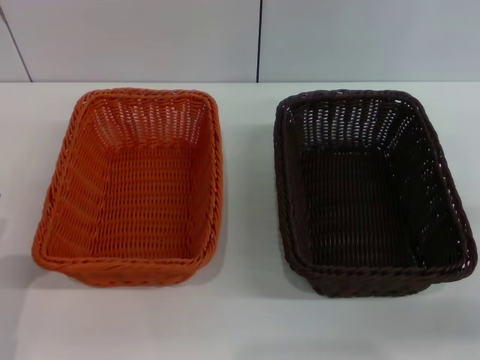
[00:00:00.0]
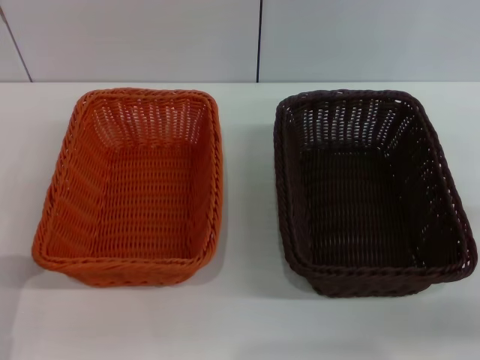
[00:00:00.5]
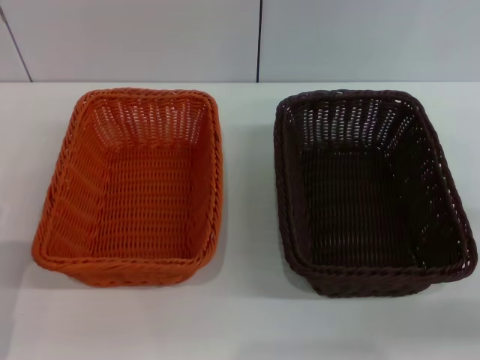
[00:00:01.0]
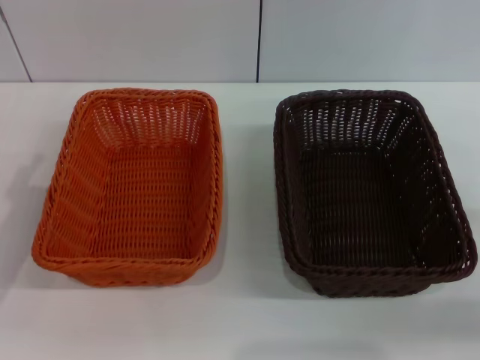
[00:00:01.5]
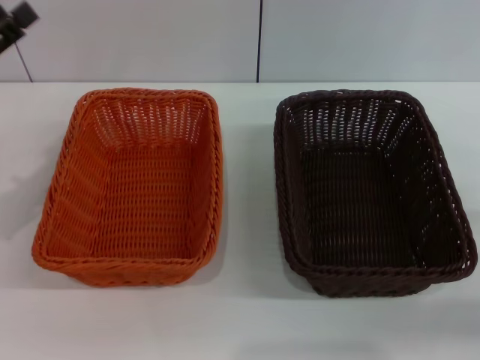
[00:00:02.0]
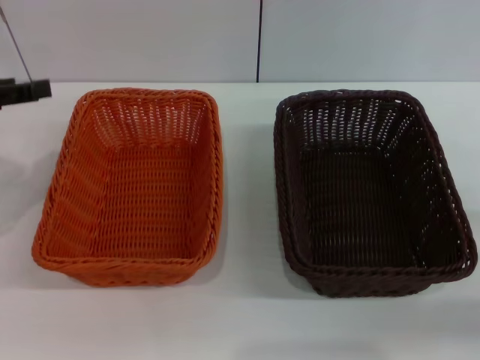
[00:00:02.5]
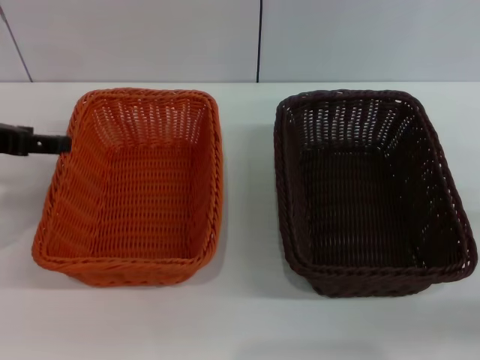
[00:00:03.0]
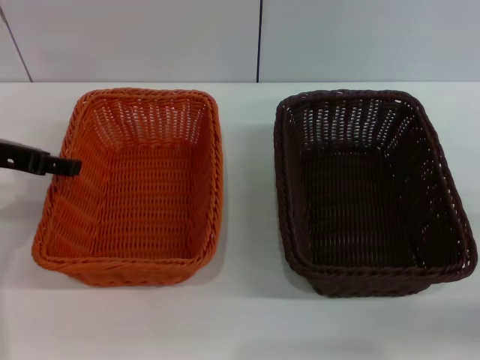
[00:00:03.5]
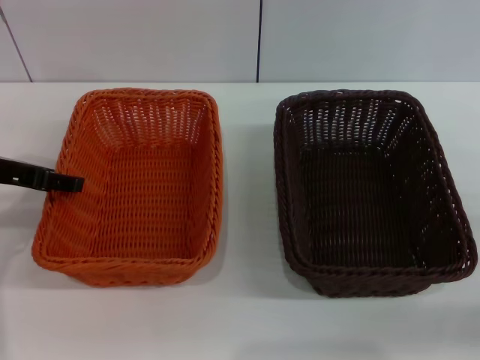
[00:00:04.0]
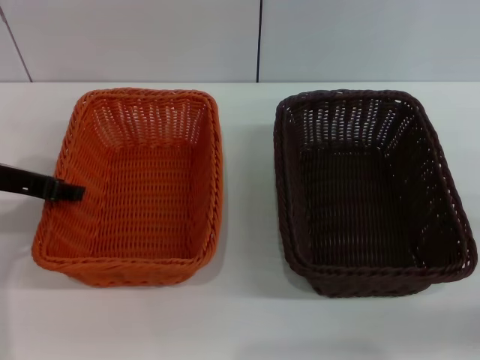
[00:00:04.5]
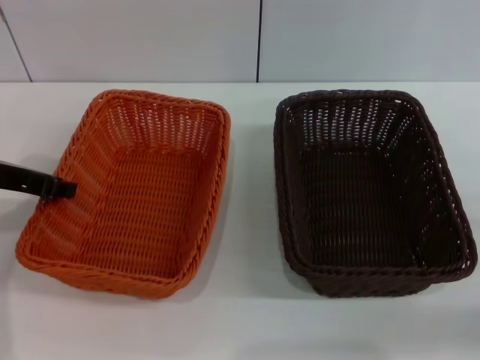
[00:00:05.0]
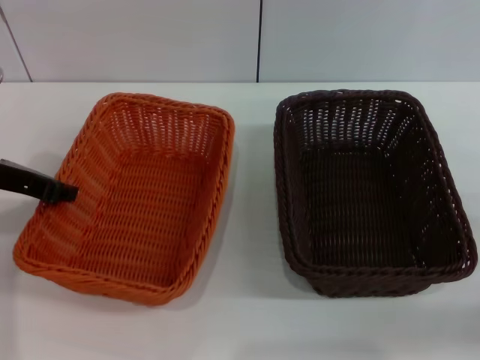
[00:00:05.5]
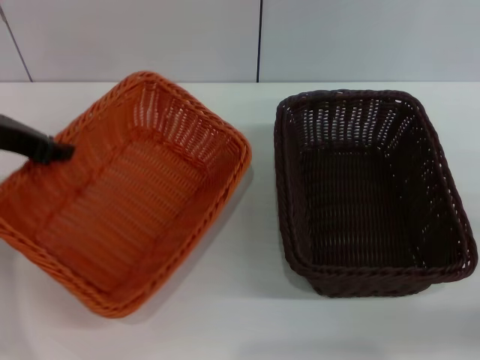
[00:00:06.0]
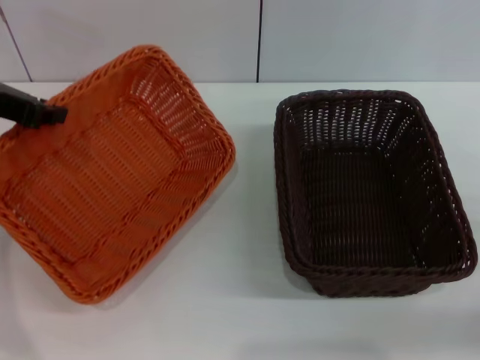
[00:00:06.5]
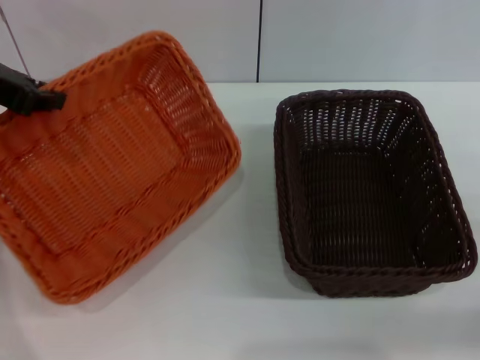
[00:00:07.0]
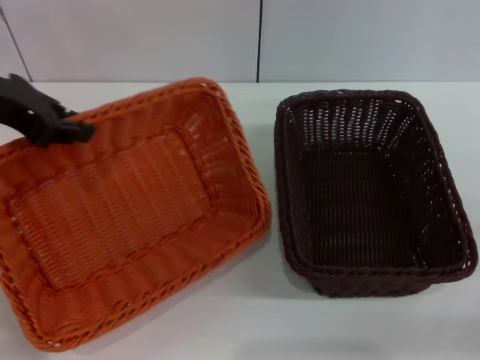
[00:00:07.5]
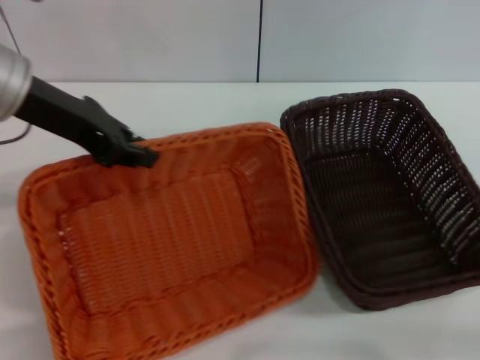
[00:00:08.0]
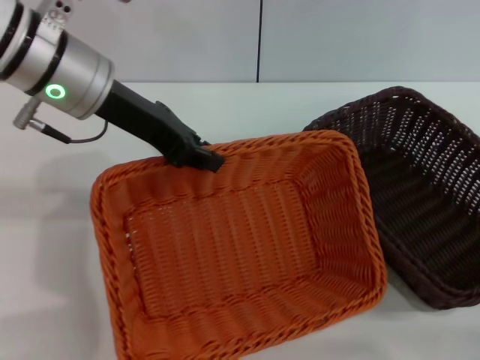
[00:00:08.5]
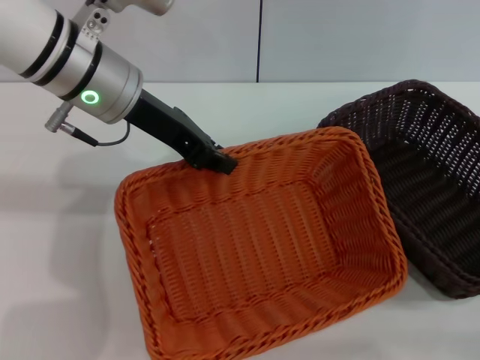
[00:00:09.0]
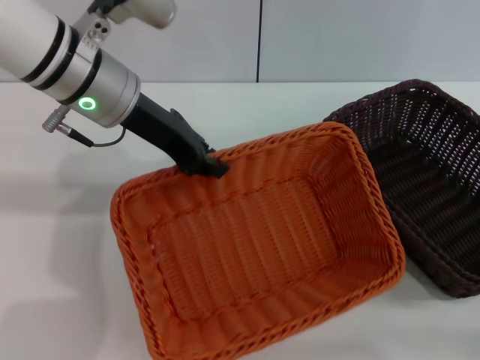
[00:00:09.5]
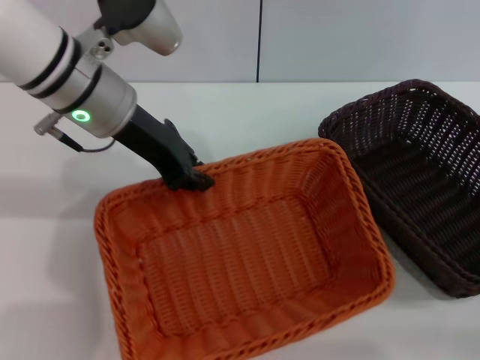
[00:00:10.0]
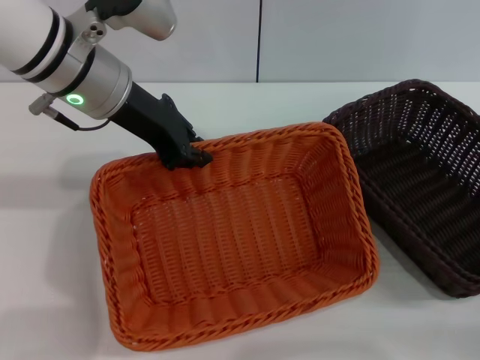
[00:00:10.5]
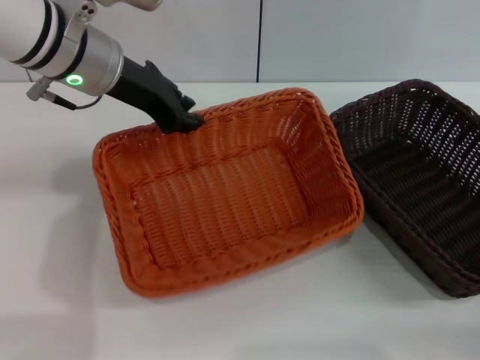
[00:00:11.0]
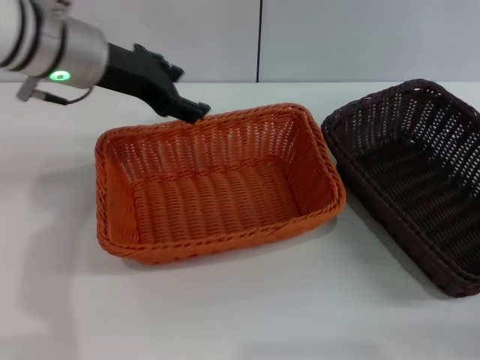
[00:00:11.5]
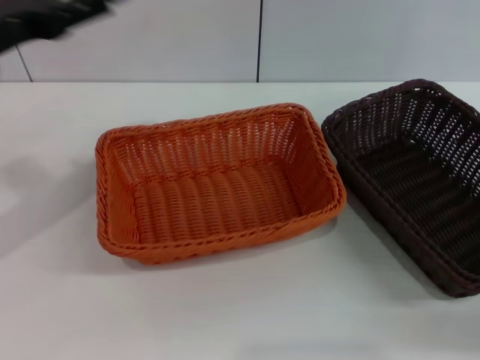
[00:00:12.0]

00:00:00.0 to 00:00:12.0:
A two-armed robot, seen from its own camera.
Step, 00:00:00.0 to 00:00:06.0: Pick up the light basket with the left gripper.
Step, 00:00:06.5 to 00:00:11.0: Place the light basket in the center of view with the left gripper.
00:00:00.0 to 00:00:02.0: The left gripper is displaced forward, upward and to the left by roughly 20 cm.
00:00:04.0 to 00:00:06.0: The left gripper closes its fingers.
00:00:06.0 to 00:00:08.0: Both grippers travel together to the right, some 5 cm.
00:00:08.0 to 00:00:10.0: The left gripper shifts approximately 5 cm to the right.
00:00:10.0 to 00:00:12.0: The left gripper heads to the left and backward, covering roughly 15 cm, and opens its fingers.

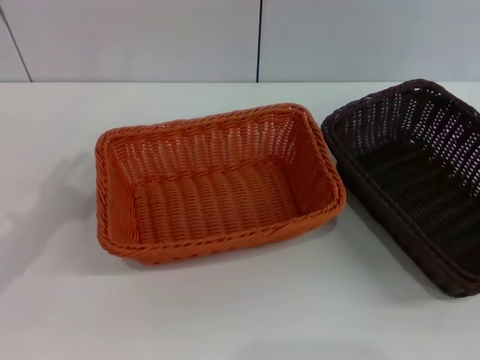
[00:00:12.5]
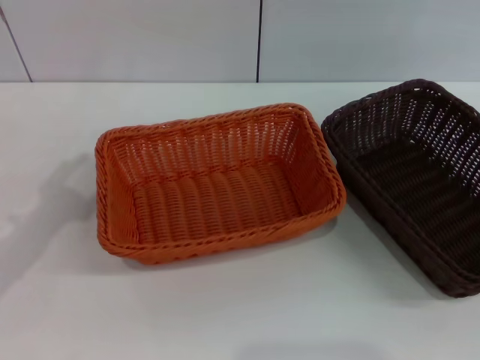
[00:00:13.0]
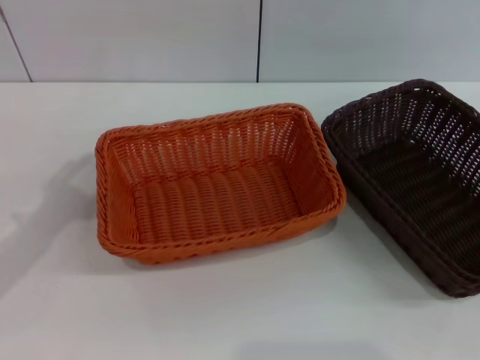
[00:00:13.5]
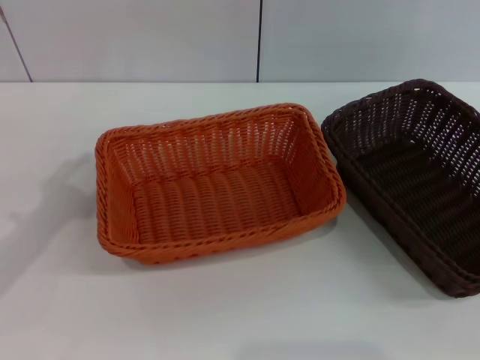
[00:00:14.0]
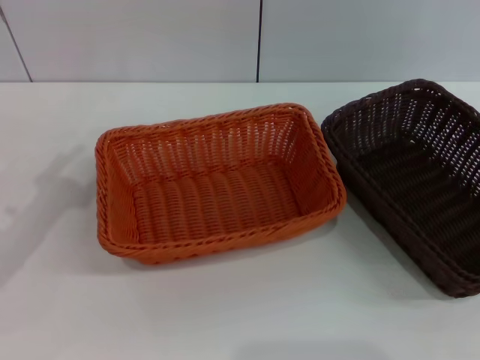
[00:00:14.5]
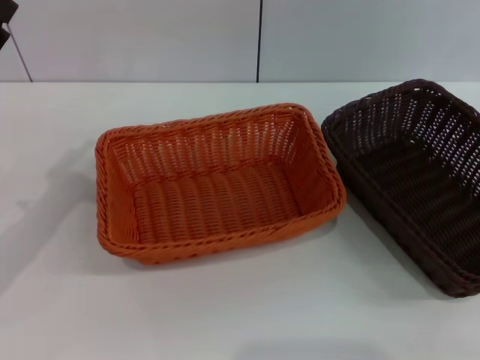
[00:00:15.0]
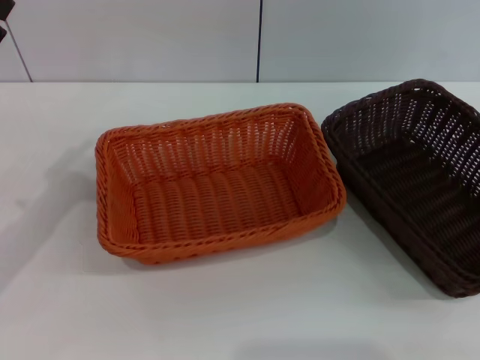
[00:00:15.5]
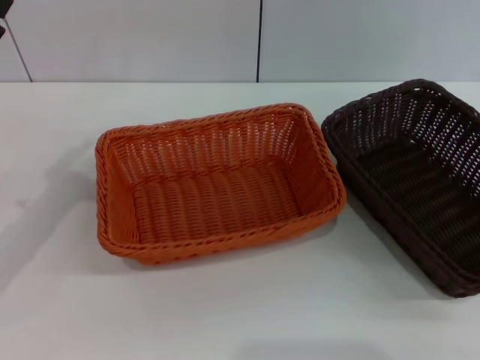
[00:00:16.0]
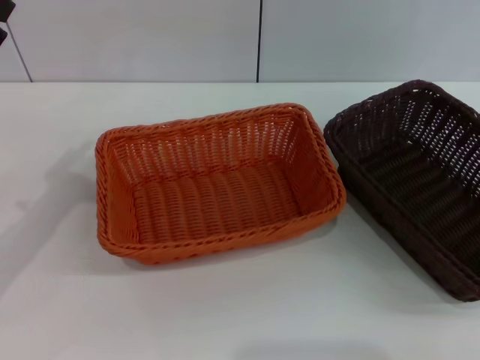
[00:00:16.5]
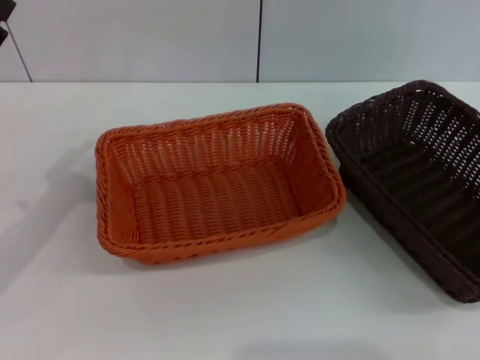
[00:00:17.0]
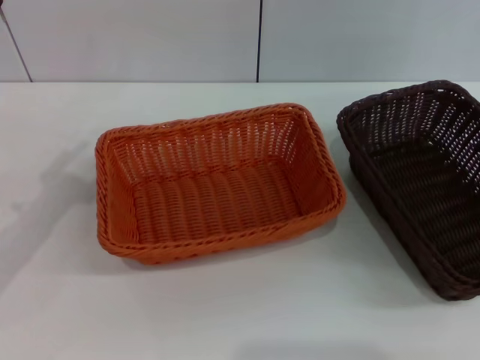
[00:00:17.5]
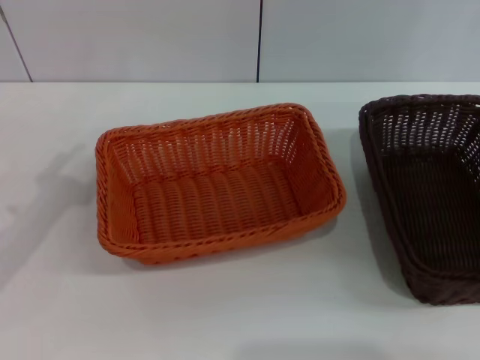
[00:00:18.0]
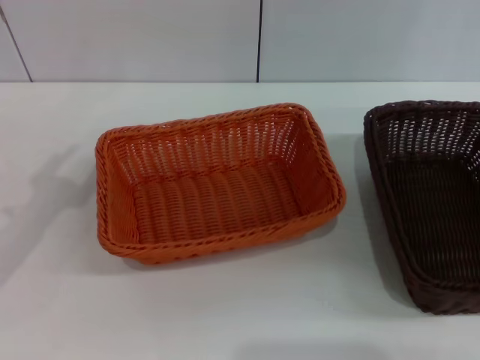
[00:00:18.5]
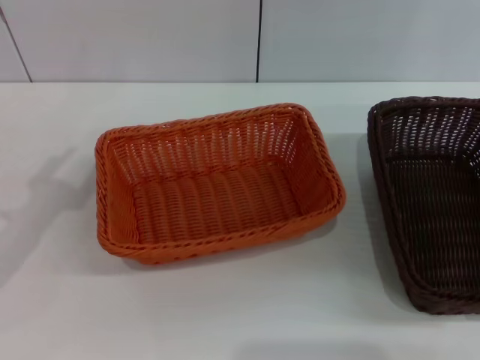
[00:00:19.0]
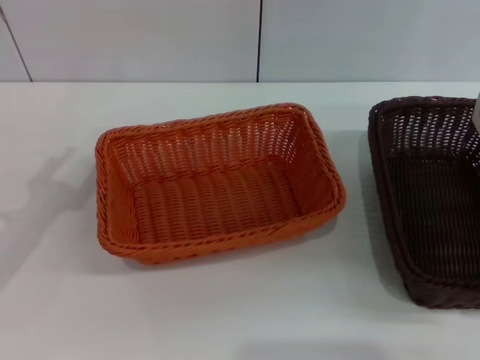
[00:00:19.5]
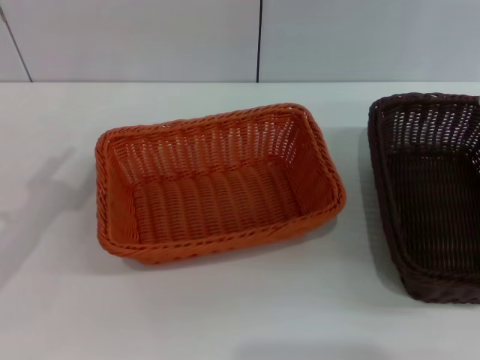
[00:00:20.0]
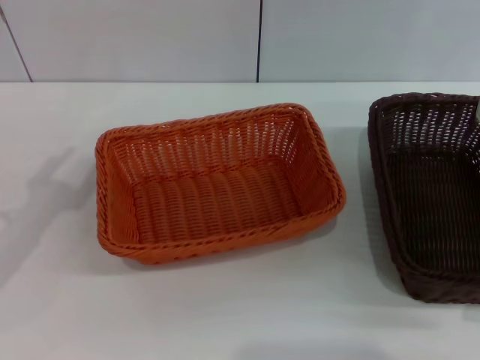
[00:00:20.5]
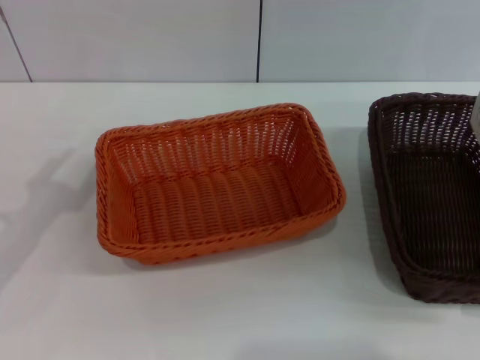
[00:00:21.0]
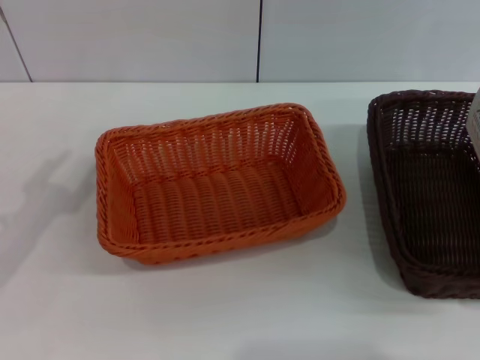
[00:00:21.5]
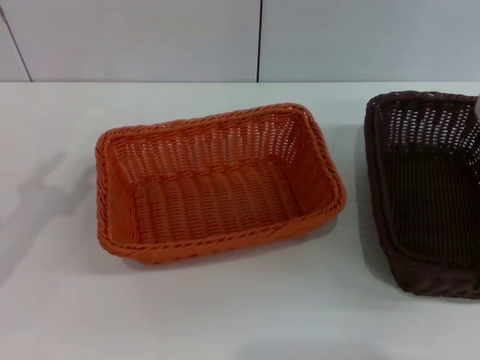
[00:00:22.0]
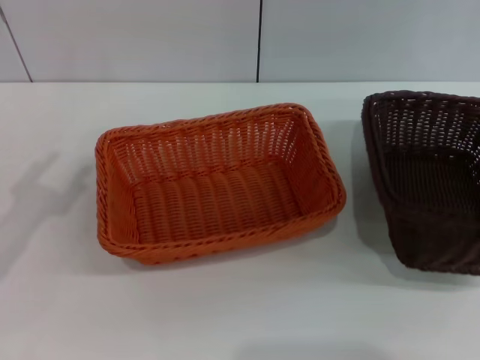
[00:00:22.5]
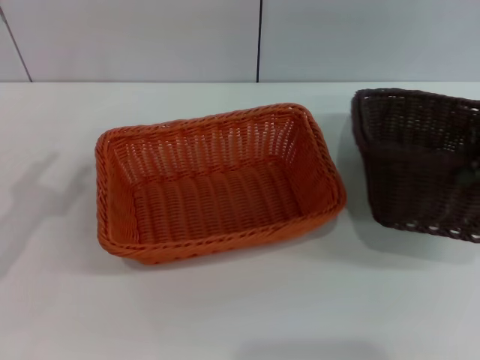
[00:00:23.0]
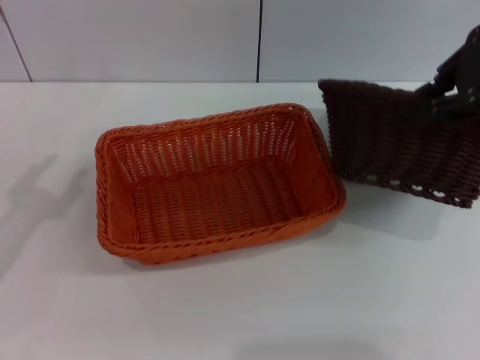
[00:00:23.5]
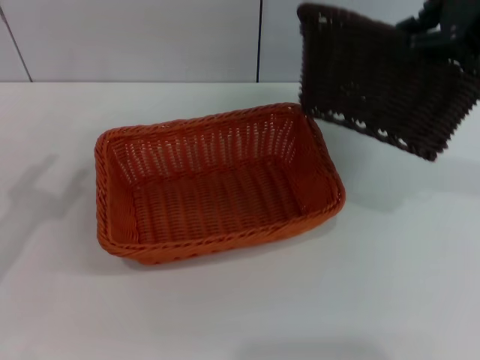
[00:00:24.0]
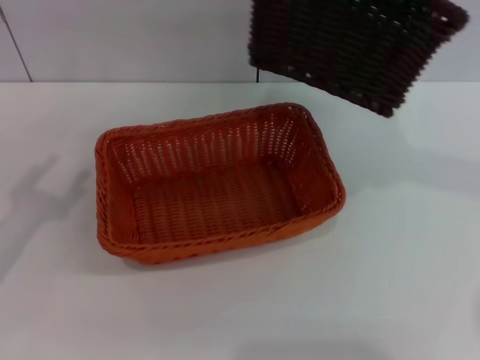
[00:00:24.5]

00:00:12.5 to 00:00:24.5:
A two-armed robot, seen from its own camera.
Step, 00:00:12.5 to 00:00:22.5: Pick up the dark basket with the right gripper.
00:00:14.5 to 00:00:16.5: The right gripper moves to the left, some 5 cm.
00:00:16.5 to 00:00:18.5: The right gripper goes approximately 5 cm to the left, and closes.
00:00:18.5 to 00:00:20.5: The right gripper opens its fingers.
00:00:20.5 to 00:00:22.5: The right gripper moves upward, about 5 cm, and closes.
00:00:22.5 to 00:00:24.5: The right gripper shifts some 15 cm upward and to the left.

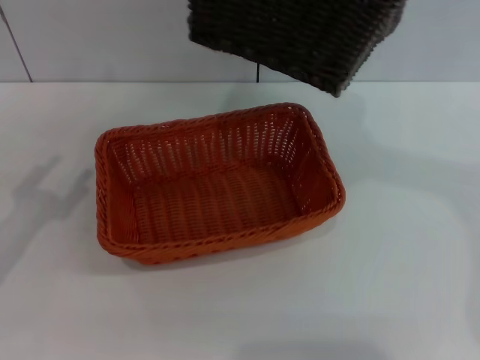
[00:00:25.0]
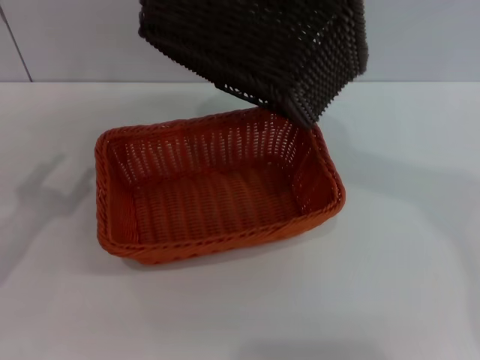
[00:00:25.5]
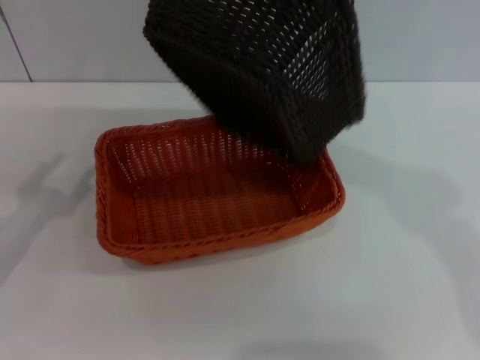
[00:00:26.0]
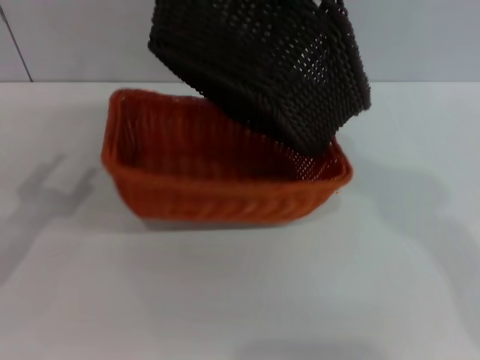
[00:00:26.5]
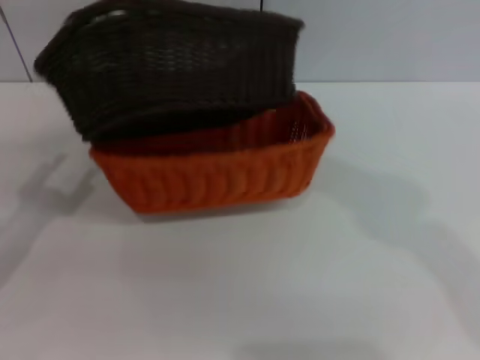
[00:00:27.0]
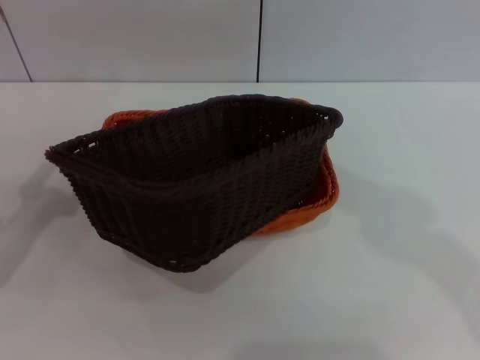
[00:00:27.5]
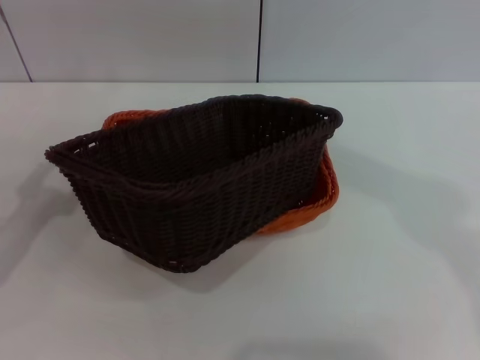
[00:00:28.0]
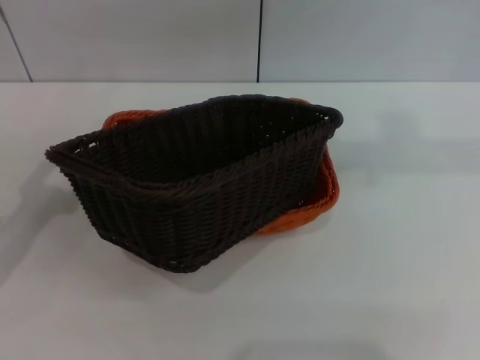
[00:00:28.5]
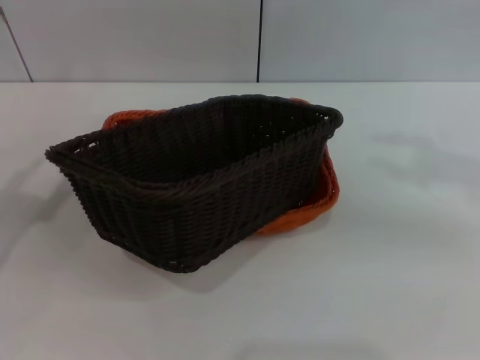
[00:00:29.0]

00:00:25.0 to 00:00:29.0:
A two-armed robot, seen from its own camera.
Step, 00:00:25.0 to 00:00:27.5: Place the dark basket on the light basket with the right gripper.
00:00:25.0 to 00:00:27.0: The right gripper moves to the left, approximately 10 cm.
00:00:27.0 to 00:00:29.0: The right gripper moves to the right, roughly 30 cm, and opens.
